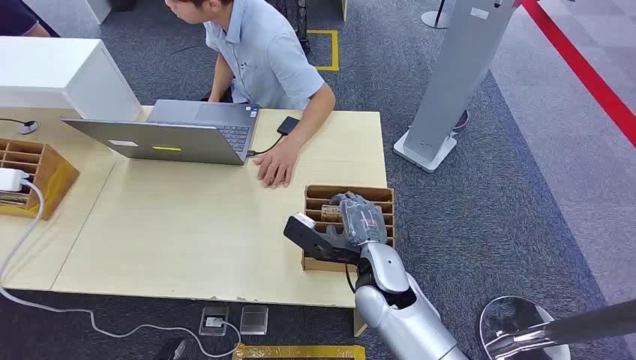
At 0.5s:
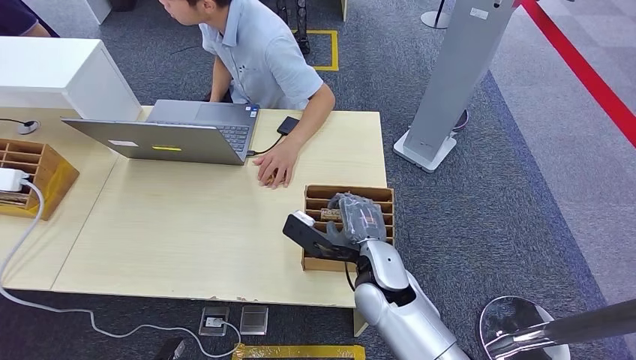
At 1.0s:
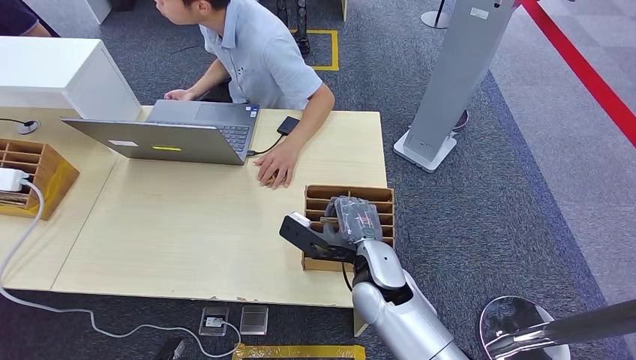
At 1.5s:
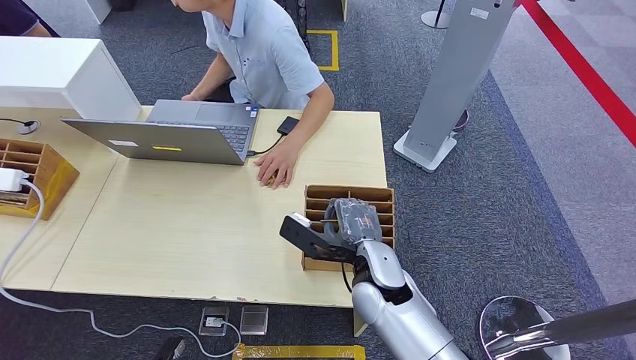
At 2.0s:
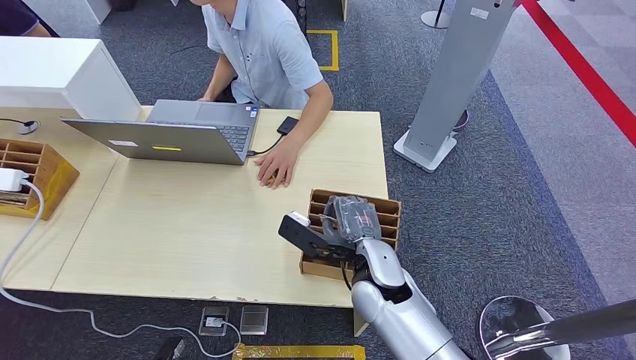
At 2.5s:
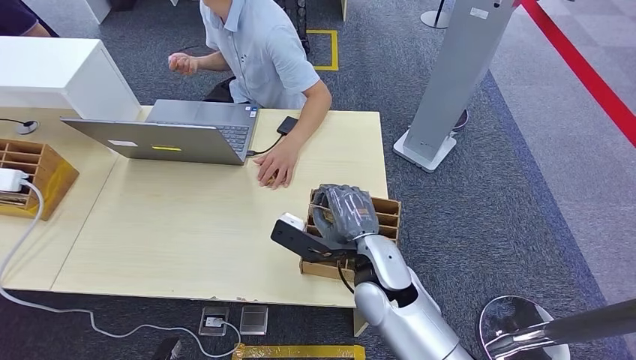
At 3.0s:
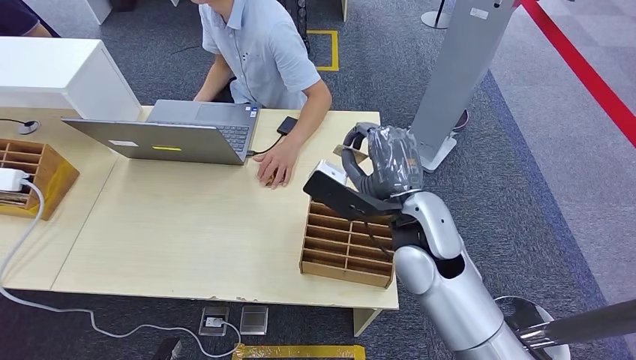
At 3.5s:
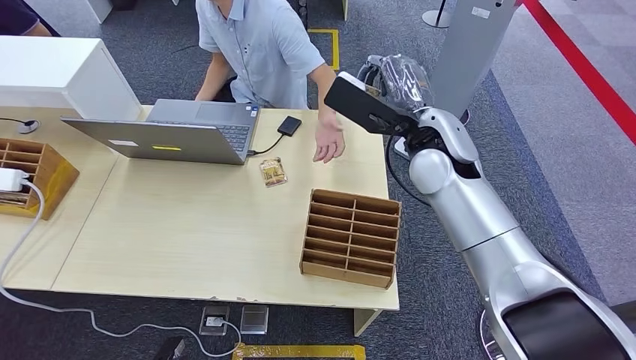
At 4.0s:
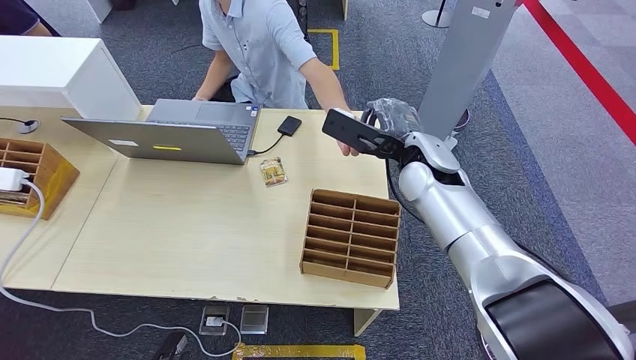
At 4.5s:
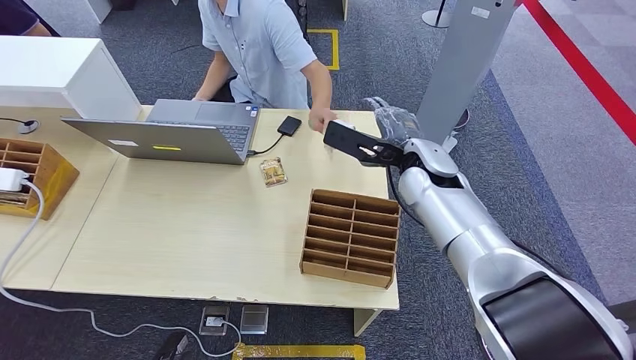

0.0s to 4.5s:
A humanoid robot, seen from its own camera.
Step, 0.0s to 2.5s: Pick up the key card from the card box.
Step, 4.0s to 4.5s: Hand the key card to the target.
2.0s to 4.5s: The right hand heads forward, upward and to the right, covering approximately 20 cm.
